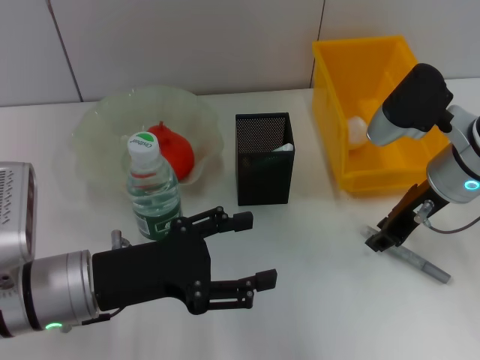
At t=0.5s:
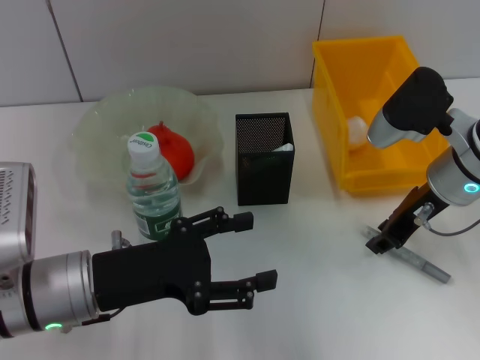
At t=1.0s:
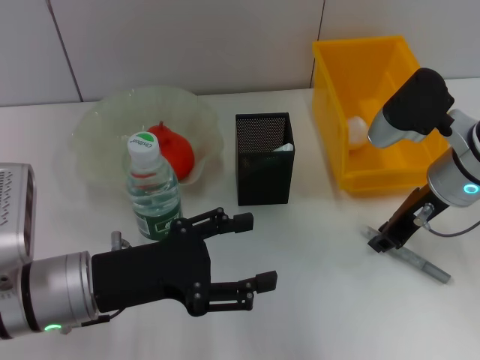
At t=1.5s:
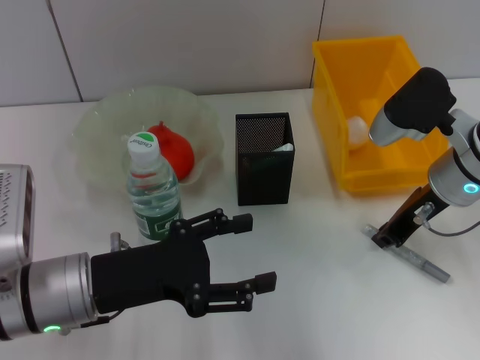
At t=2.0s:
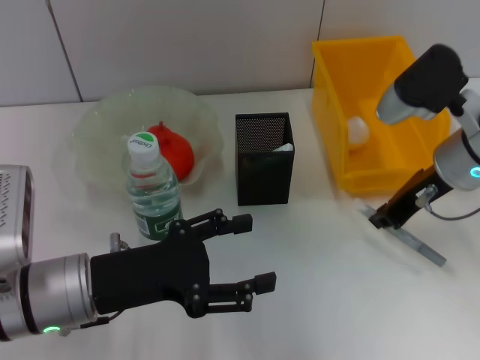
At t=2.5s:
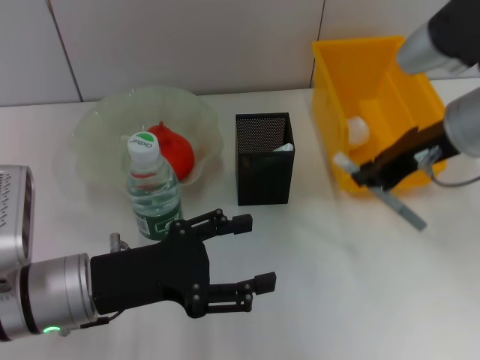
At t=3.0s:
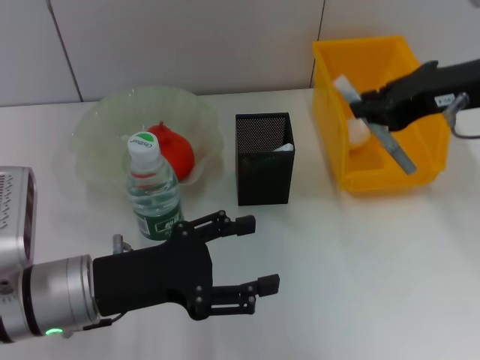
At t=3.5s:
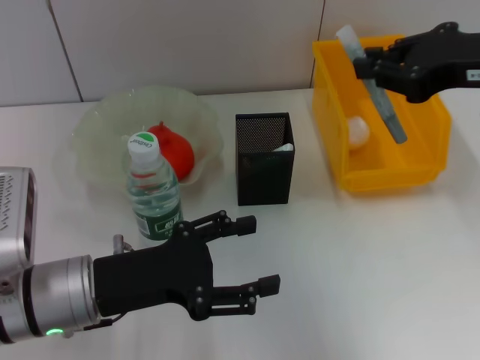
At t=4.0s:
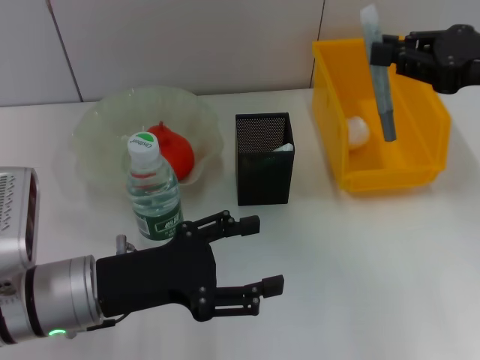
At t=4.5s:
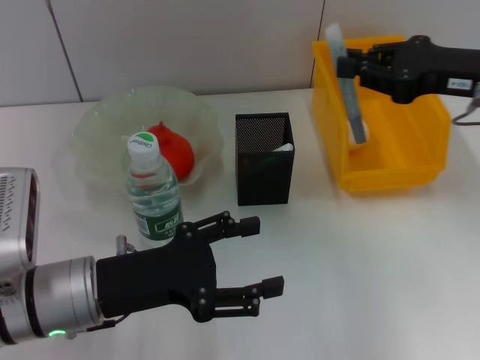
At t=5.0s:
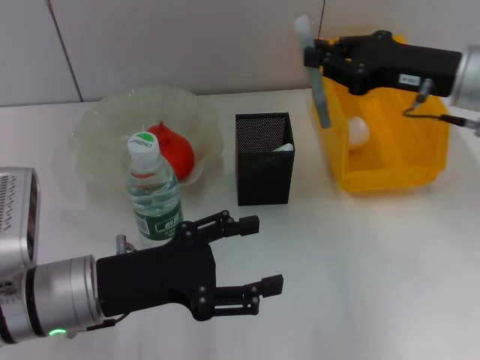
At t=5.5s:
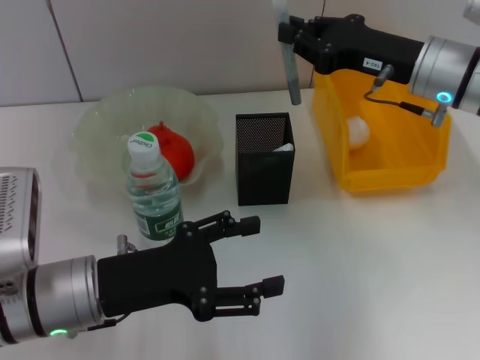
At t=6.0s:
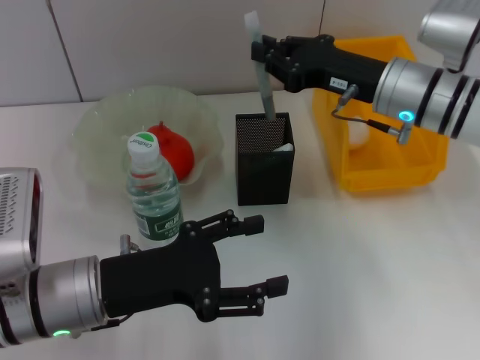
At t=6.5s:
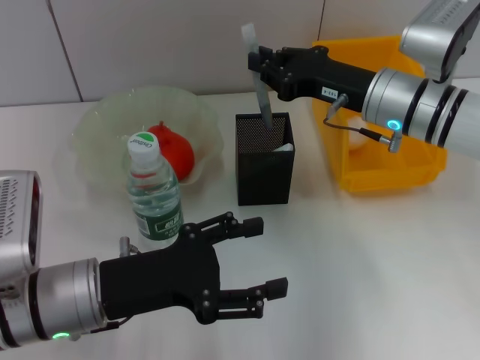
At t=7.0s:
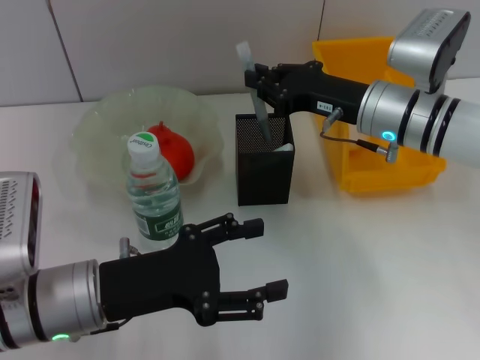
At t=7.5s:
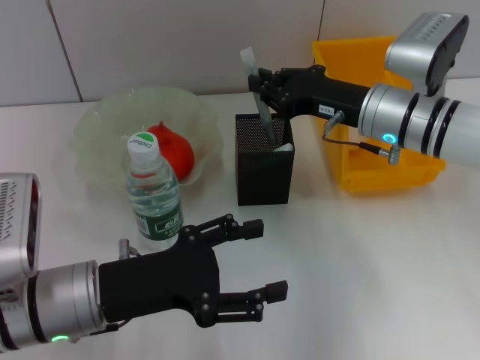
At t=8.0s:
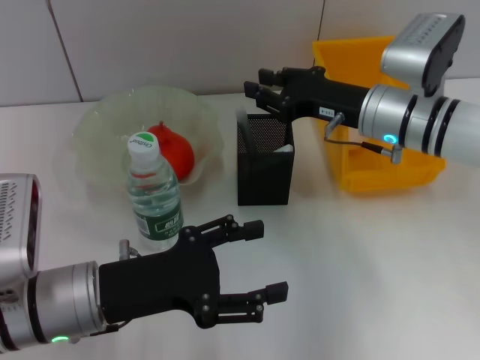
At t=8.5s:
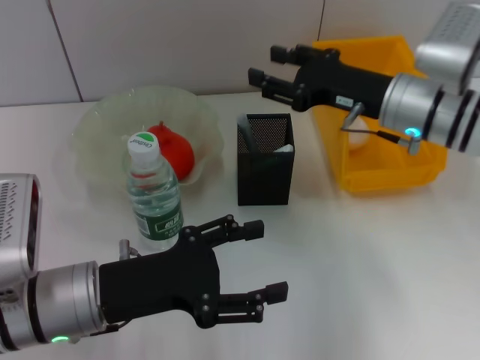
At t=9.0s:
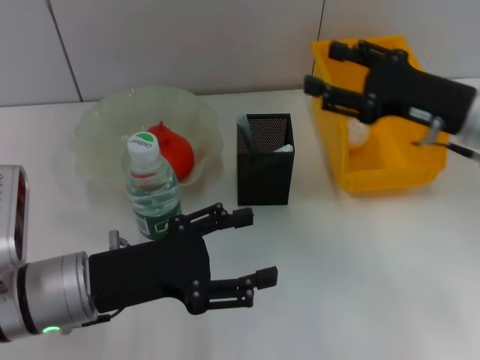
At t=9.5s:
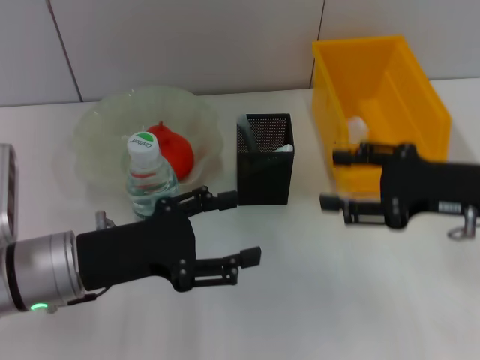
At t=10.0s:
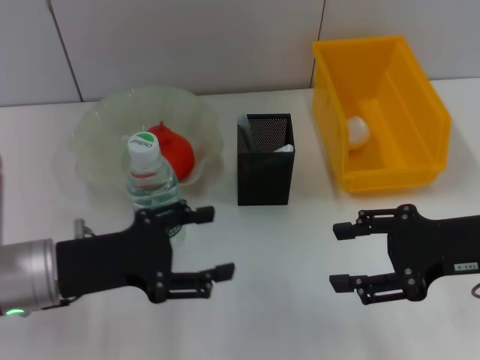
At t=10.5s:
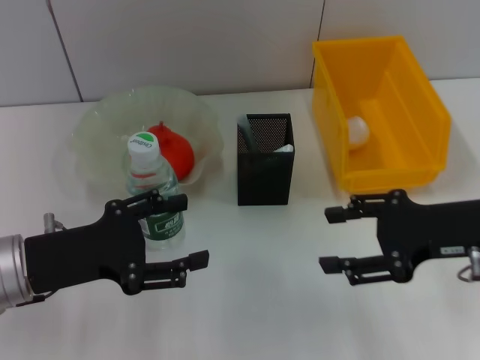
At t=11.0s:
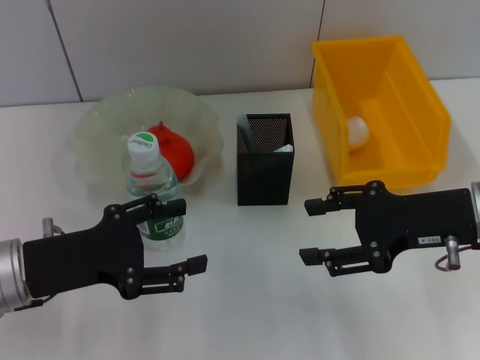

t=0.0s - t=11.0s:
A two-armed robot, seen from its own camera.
Step, t=2.0s - t=8.0s: Place the gray glue into the pen holder with the right hand.
t=0.0s - t=2.0s: The right gripper closes.
t=2.0s - t=3.5s: The right gripper travels upward and backward by some 10 cm.
t=3.5s - t=5.5s: The right gripper is displaced downward and forward by approximately 15 cm.
t=5.5s - t=7.5s: The right gripper changes place by about 5 cm.
t=7.5s - t=9.0s: The right gripper is displaced to the right and backward by about 10 cm, and opens up.
t=9.0s - t=11.0s: The left gripper travels to the left by about 5 cm. The right gripper is displaced backward by roughly 5 cm.

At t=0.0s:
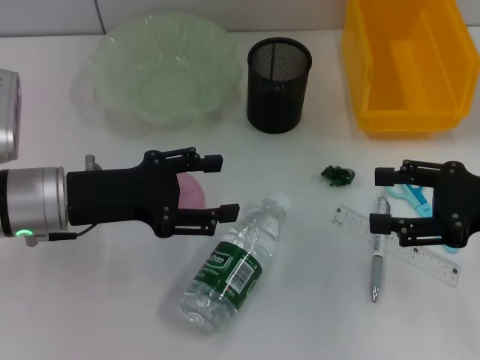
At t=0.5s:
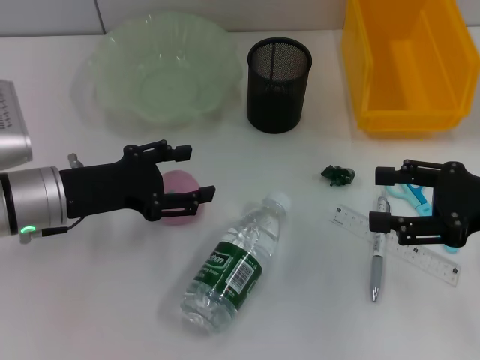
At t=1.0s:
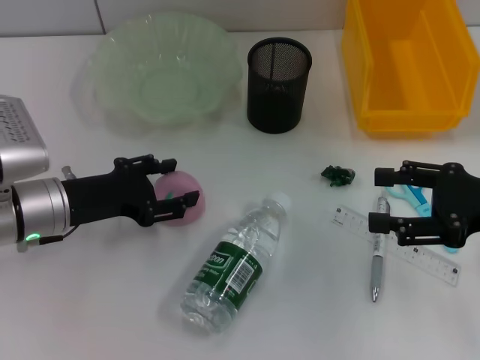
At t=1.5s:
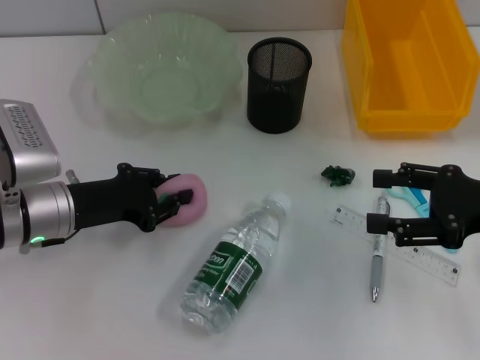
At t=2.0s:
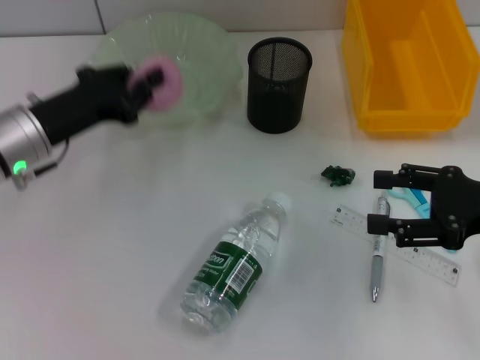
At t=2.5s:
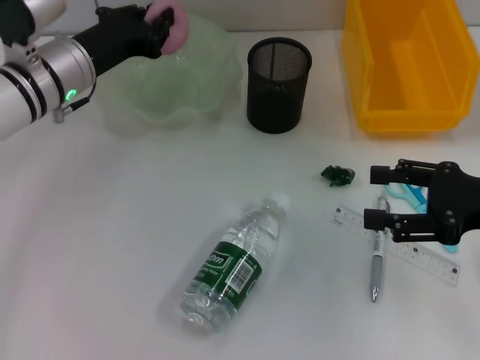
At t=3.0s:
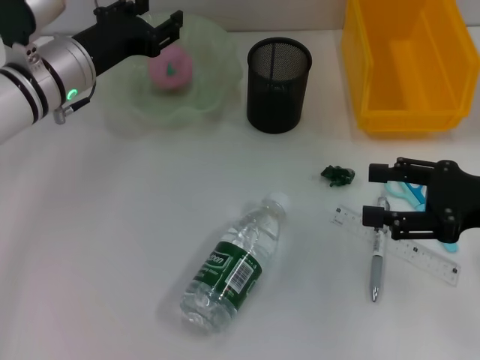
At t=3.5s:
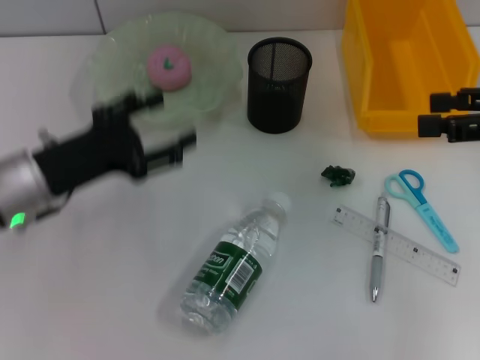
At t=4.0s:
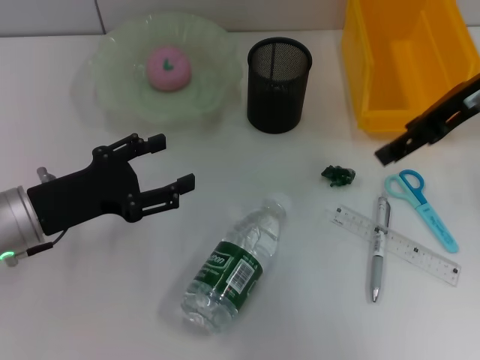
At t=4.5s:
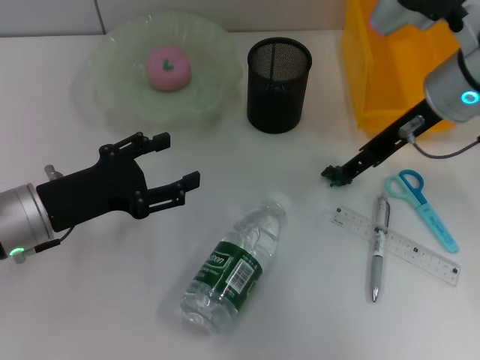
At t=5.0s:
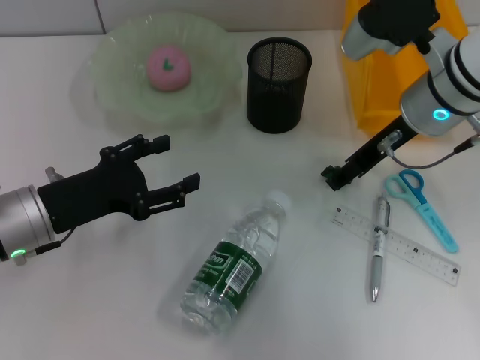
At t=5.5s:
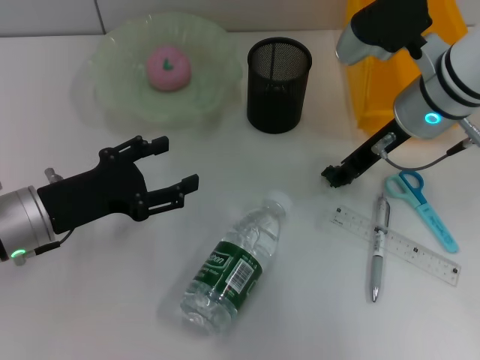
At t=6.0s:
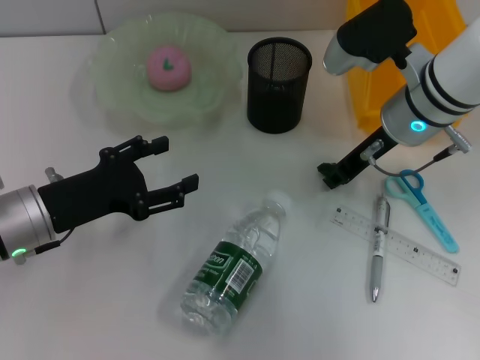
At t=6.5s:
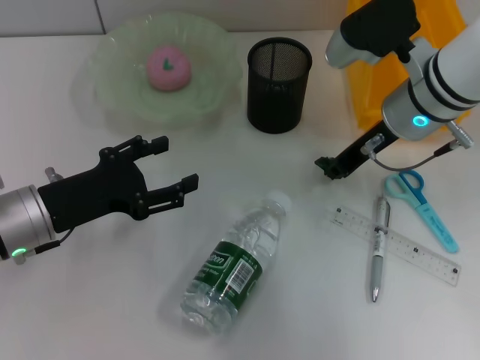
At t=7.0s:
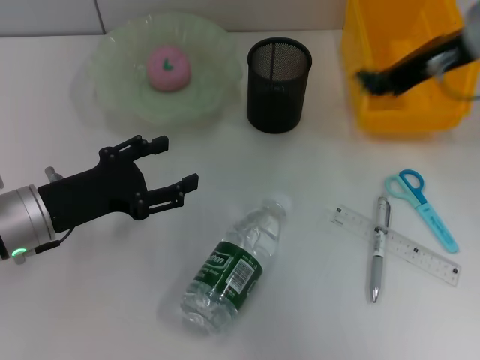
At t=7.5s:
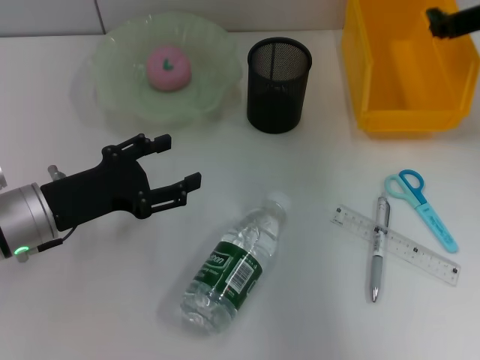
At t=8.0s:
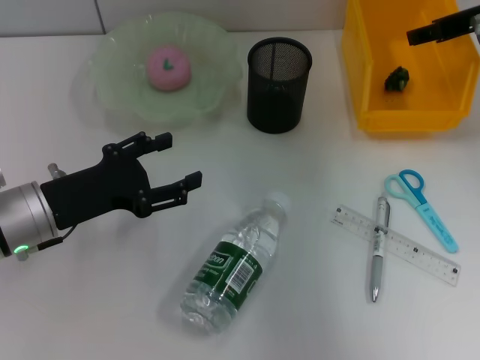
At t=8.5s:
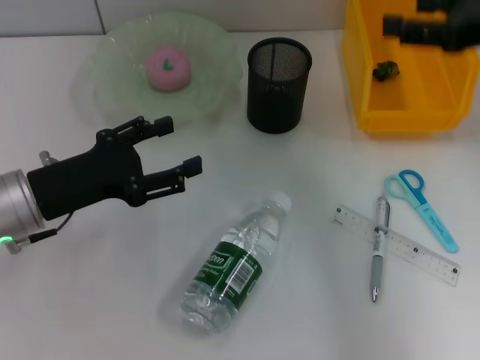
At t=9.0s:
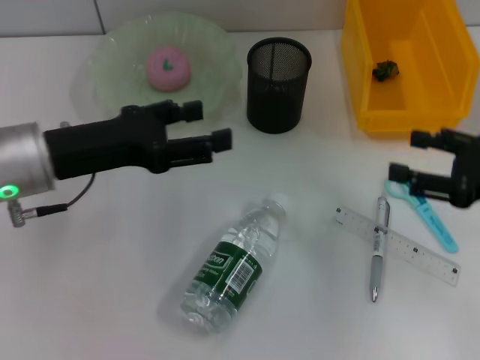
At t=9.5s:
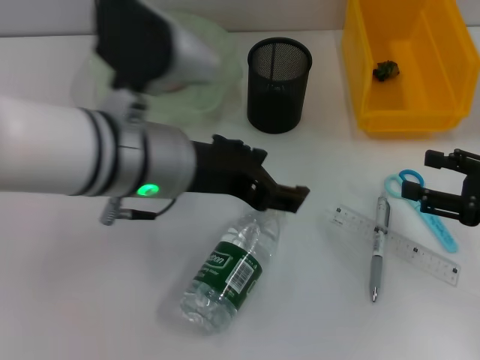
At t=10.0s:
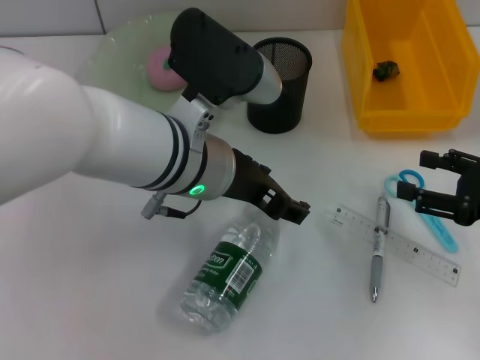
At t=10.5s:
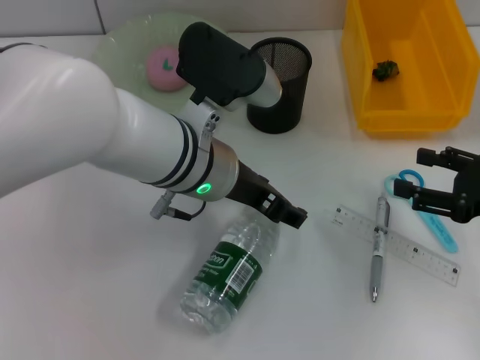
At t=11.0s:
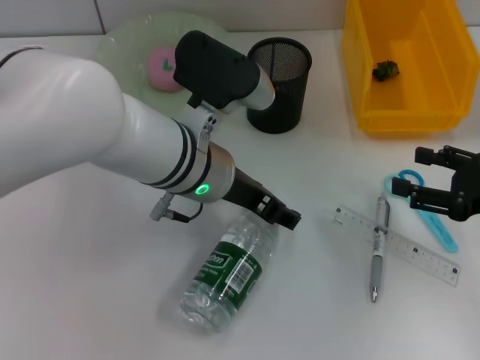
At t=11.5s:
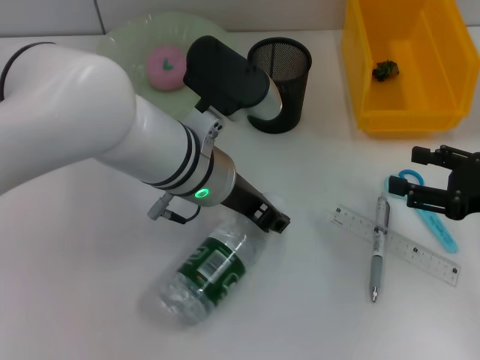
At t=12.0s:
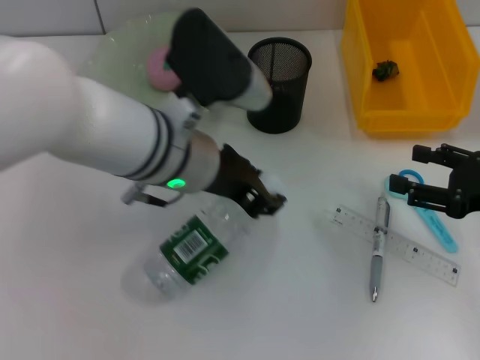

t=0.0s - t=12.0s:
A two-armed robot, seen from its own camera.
Step, t=0.0s - t=1.5s: Grab the peach with the left hand.
Step, t=2.0s - t=2.5s: Place the peach into the fruit bowl with the left hand.
Step, t=3.0s - t=6.0s: Grab the plastic with the right hand.
Step, t=6.5s - t=8.0s: Place the plastic into the trash can with the right hand.
Step, t=8.5s - t=11.5s: Grab the water bottle with the left hand.
t=0.0s - t=2.0s: The left gripper changes place by some 5 cm, and closes up.
t=2.0s - t=4.0s: The right gripper heads upward, forward and to the left, covering some 20 cm, while the left gripper heads backward, covering approximately 5 cm, and opens up.
t=4.0s - t=6.0s: The right gripper is displaced downward and to the left by roughly 10 cm, and closes up.
t=6.0s - t=8.0s: The right gripper travels to the right and upward by some 15 cm, and closes, then opens again.
t=8.0s - t=10.0s: The left gripper is displaced to the right and upward by about 20 cm. Meanwhile the right gripper is displaced backward and downward by some 20 cm.
t=10.0s - t=12.0s: The left gripper closes its fingers.

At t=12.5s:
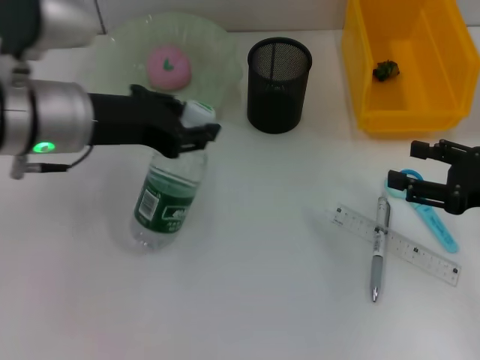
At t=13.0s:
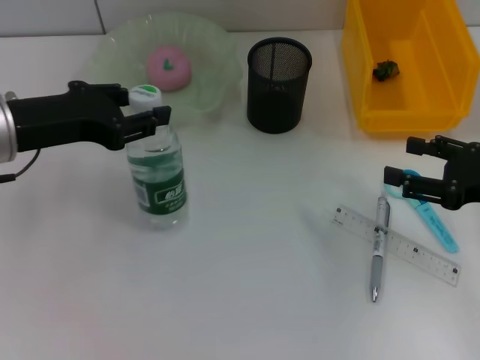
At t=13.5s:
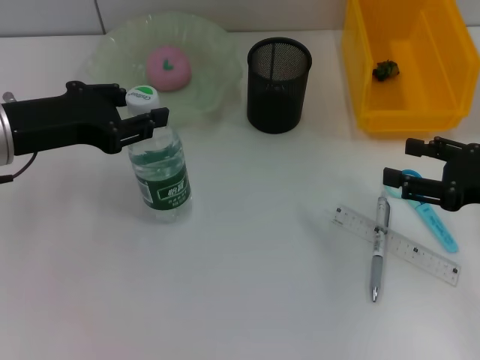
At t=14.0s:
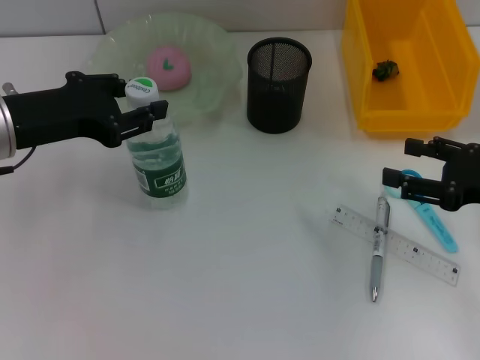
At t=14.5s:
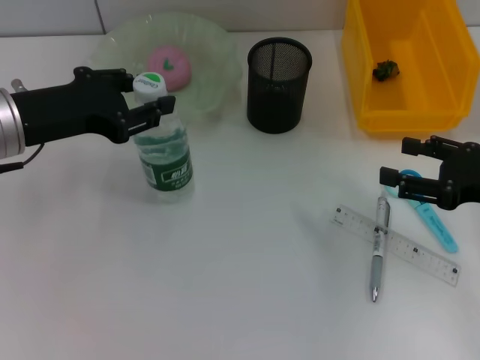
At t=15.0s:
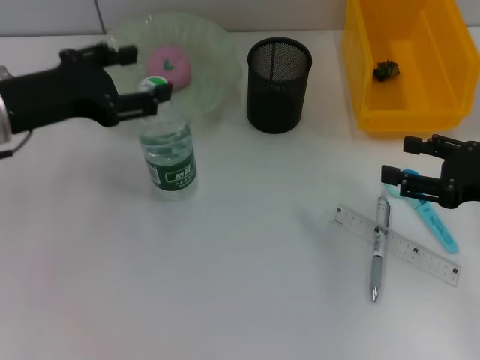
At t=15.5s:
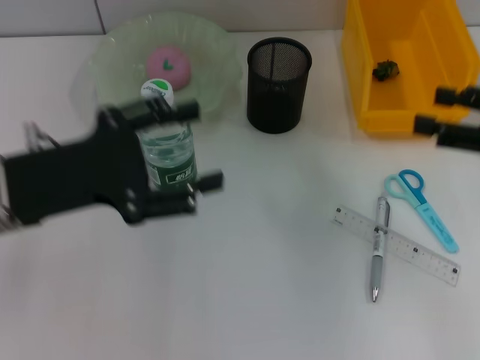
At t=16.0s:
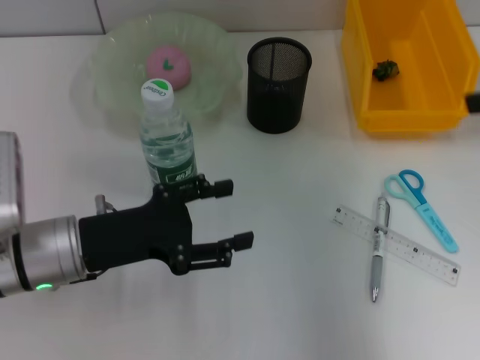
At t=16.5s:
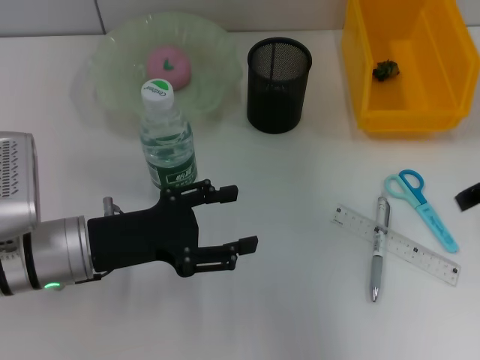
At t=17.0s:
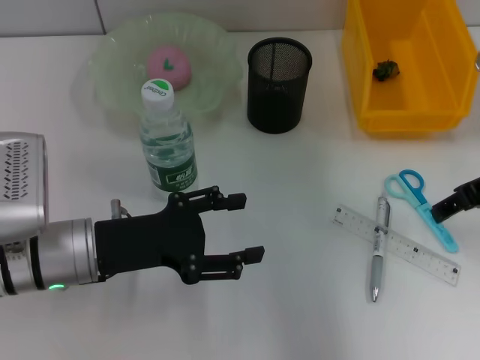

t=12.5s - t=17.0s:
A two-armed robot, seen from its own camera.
Step, t=12.5s - t=15.0s: Place the water bottle on the table with the left hand.
t=12.5s - t=14.5s: The left gripper travels to the left by some 5 cm.
t=14.5s - t=17.0s: The right gripper is displaced upward, to the left and forward by approximately 10 cm. The left gripper is displaced downward and backward by roughly 10 cm, and opens its fingers.
